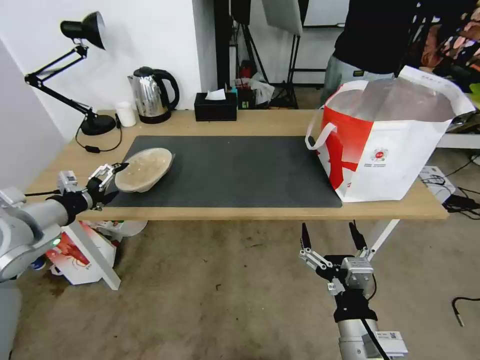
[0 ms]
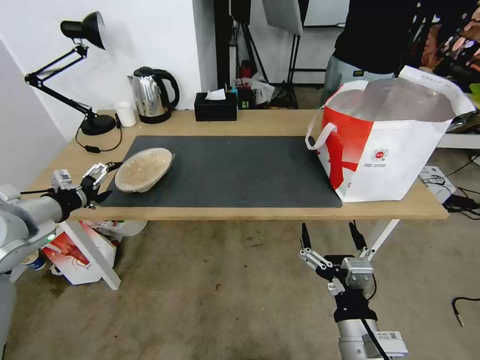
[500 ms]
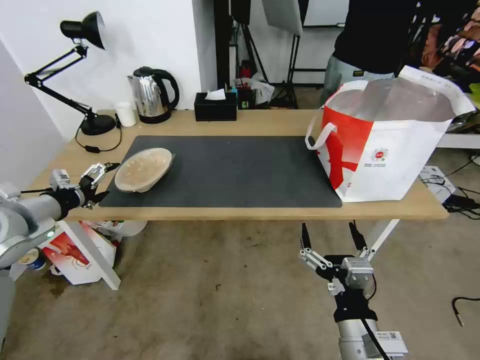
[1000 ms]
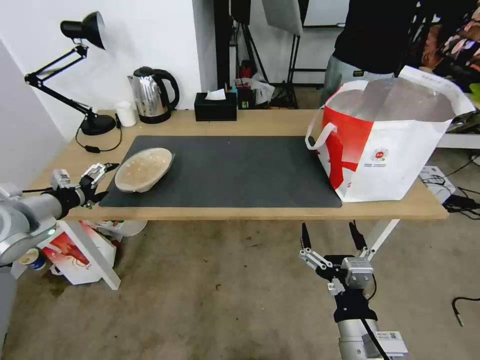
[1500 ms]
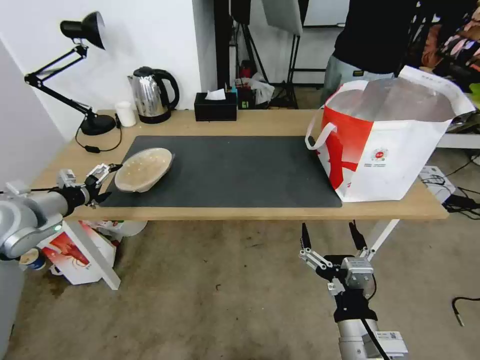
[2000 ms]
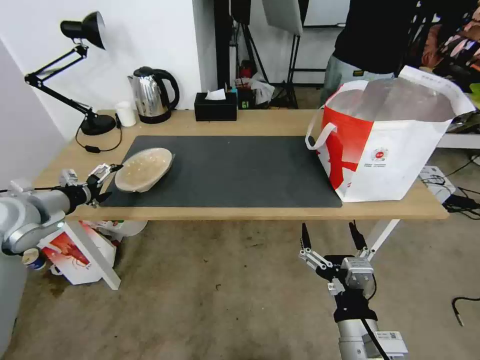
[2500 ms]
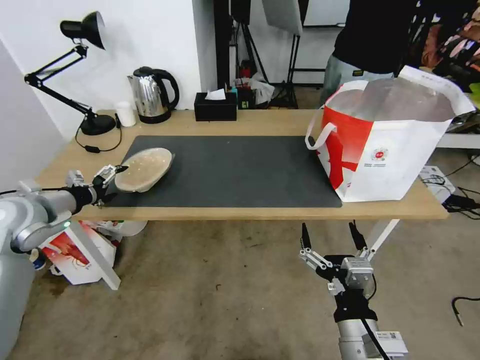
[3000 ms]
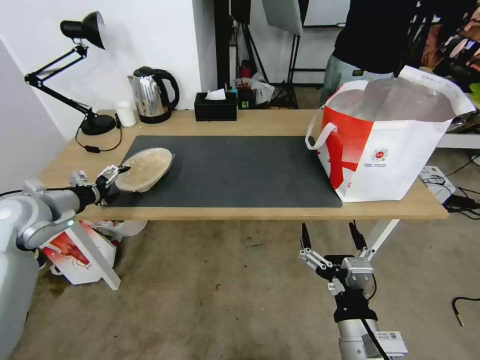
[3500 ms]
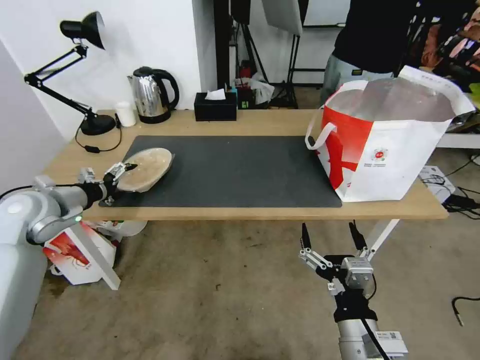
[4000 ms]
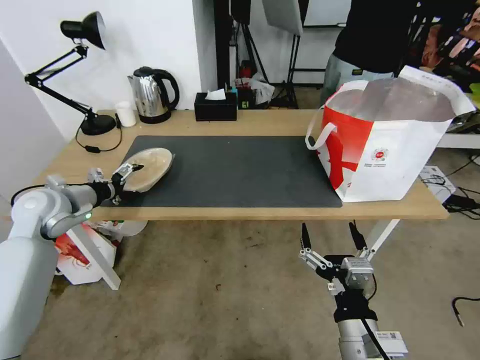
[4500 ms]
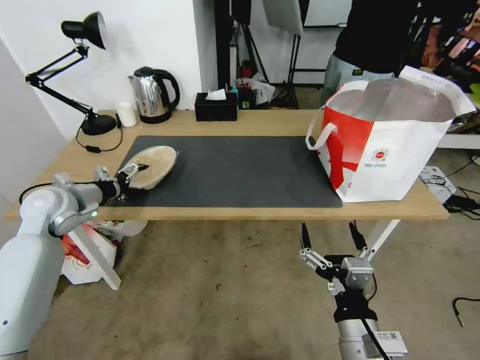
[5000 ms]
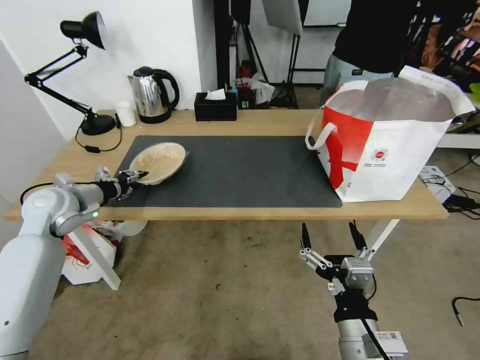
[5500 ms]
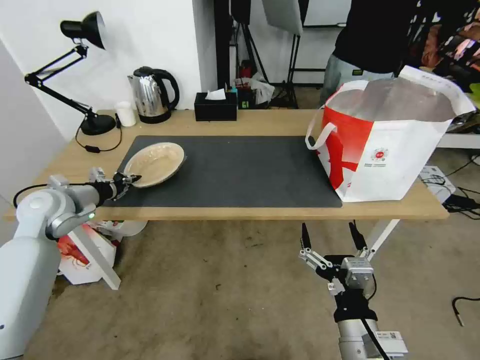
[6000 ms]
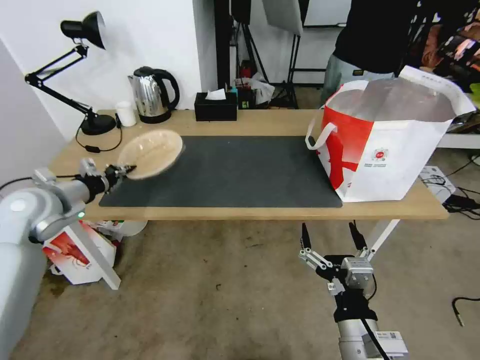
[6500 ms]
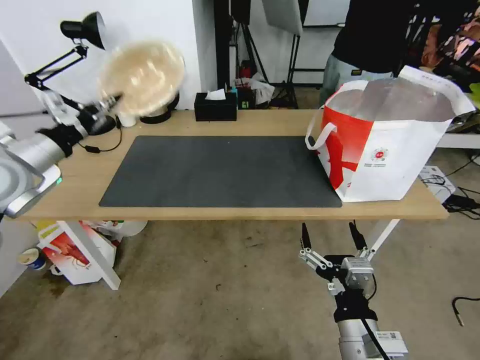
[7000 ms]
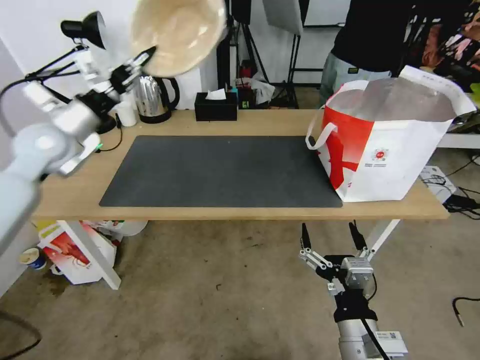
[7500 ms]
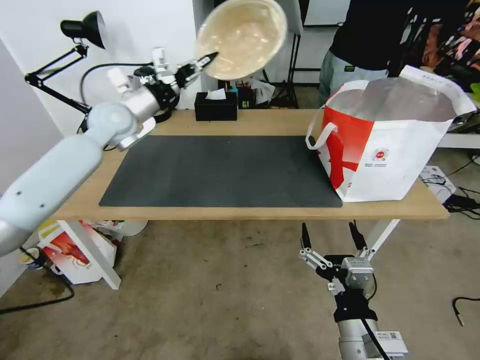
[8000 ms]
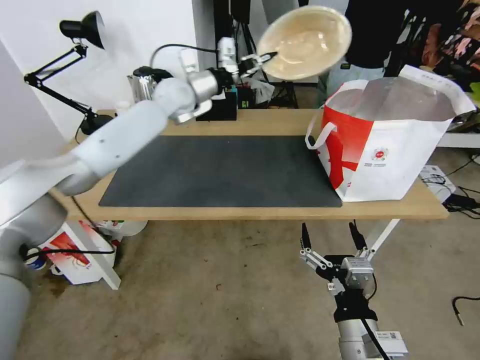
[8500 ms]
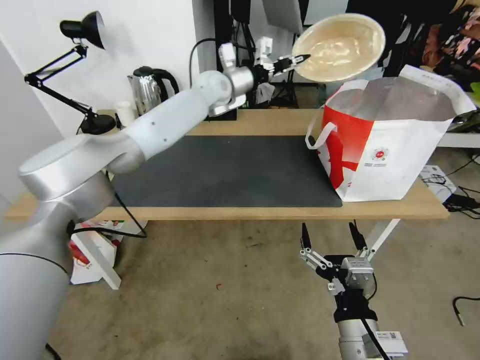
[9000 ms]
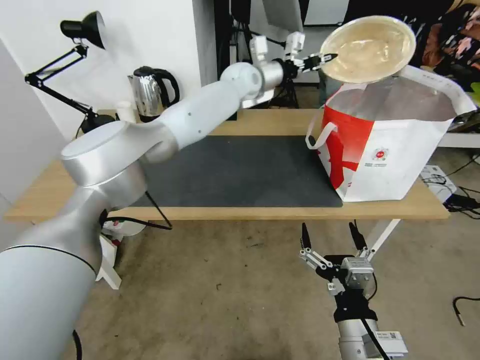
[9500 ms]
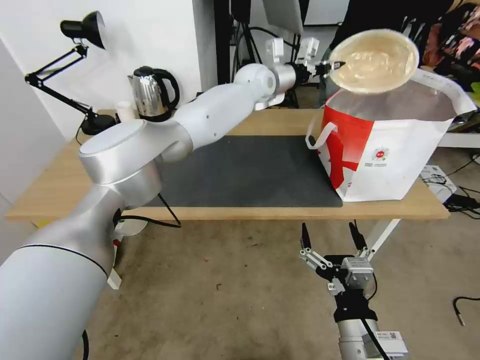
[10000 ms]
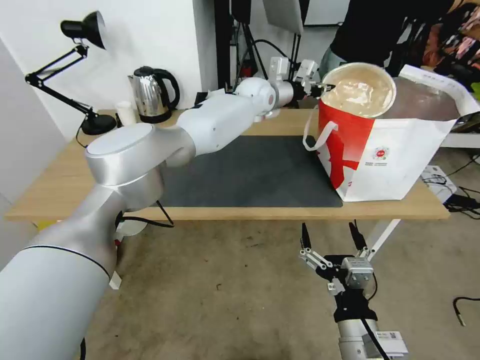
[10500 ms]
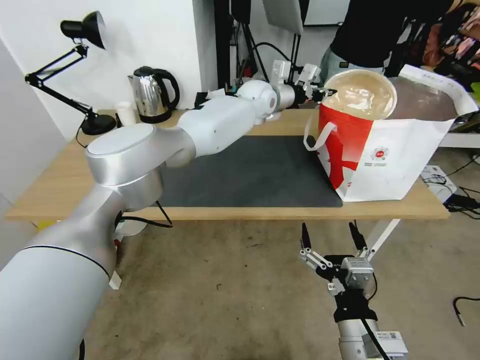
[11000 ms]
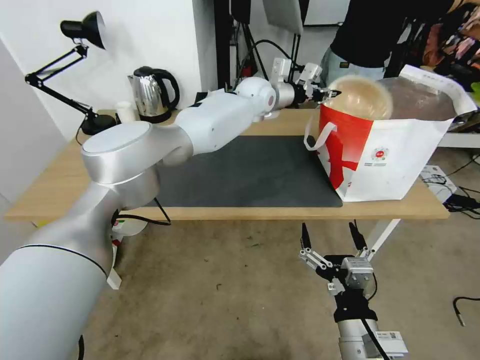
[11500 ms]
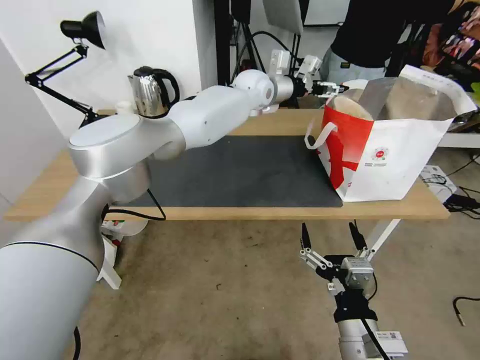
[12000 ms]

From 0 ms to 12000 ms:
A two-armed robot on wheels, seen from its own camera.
Task of the whole recording: Pick up the trash from the table and place it into the takeout bag.
From 0 ms to 2000 ms: The left gripper ends up about 5 cm from where it was.
From 2000 ms to 4000 ms: The grippers make only small movements.
From 4000 ms to 6000 ms: The left gripper closes.
From 6000 ms to 8000 ms: The left gripper heads forward, to the right and upward, covering roughly 25 cm.
From 8000 ms to 10000 ms: The left gripper shifts about 30 cm to the right.
From 10000 ms to 12000 ms: The left gripper opens its fingers.

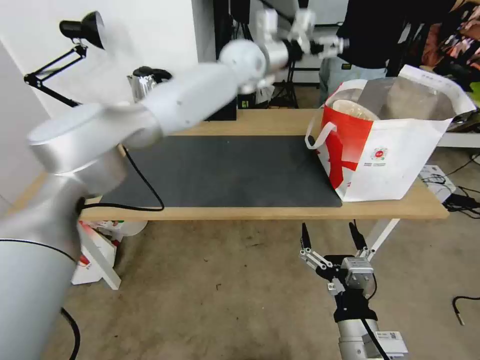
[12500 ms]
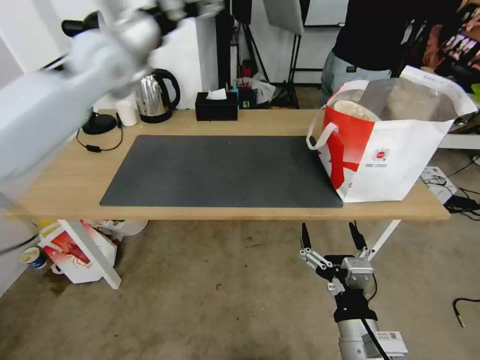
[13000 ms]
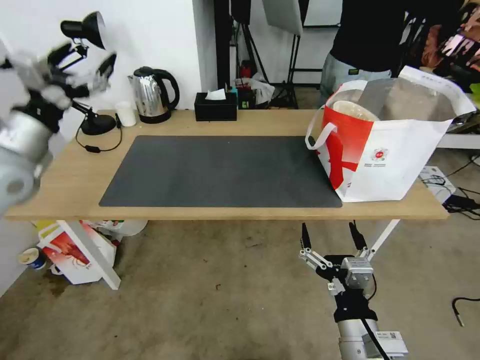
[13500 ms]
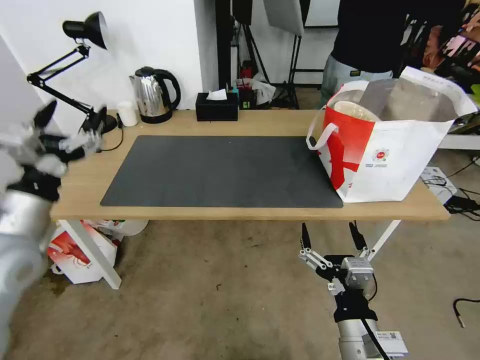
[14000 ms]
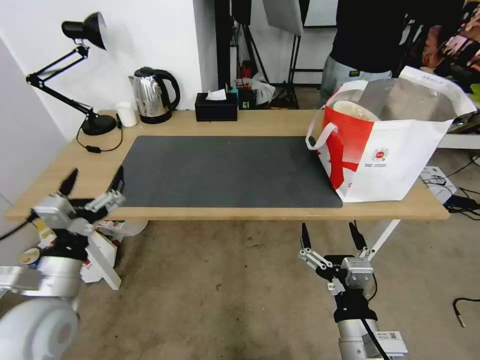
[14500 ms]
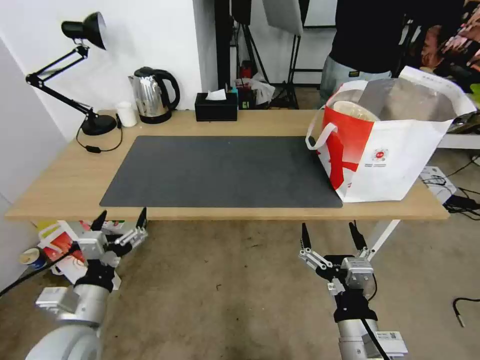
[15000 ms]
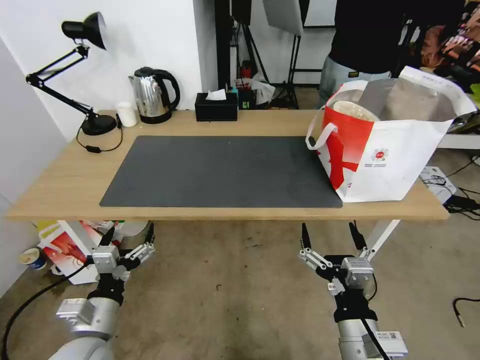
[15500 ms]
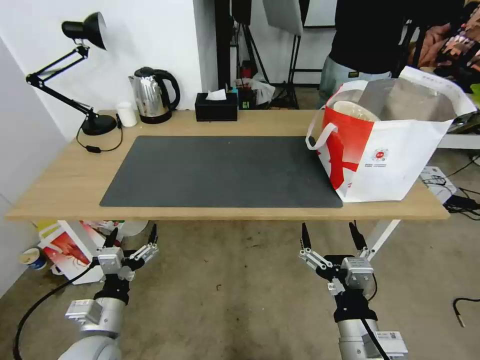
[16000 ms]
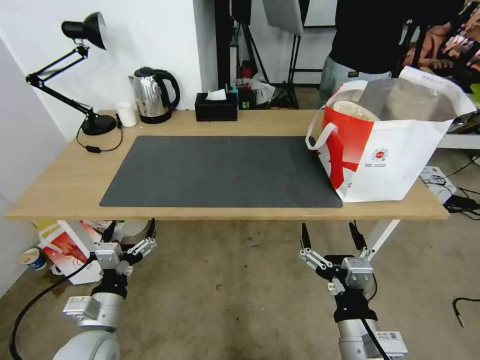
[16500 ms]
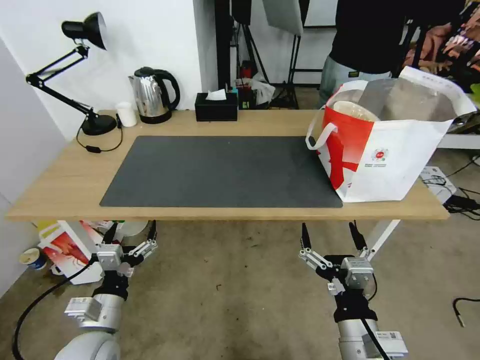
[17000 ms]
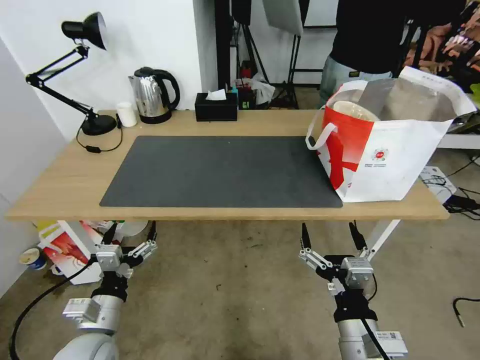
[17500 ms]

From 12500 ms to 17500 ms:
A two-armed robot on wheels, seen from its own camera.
Task of the whole recording: Pick up the trash from the table and place it into the takeout bag.
From 12500 ms to 15000 ms: The left gripper goes about 60 cm backward, downward and to the left.
From 15000 ms to 17500 ms: The left gripper moves downward, some 5 cm.

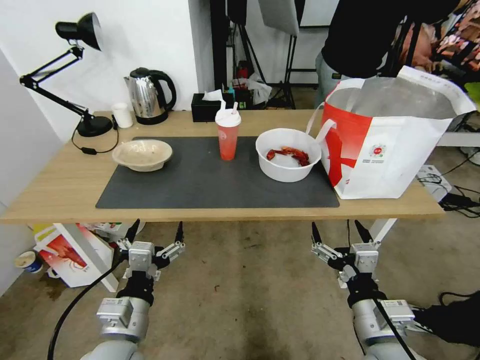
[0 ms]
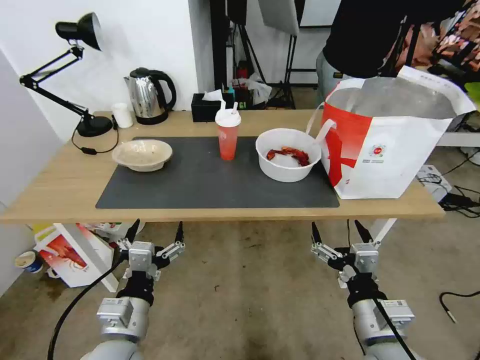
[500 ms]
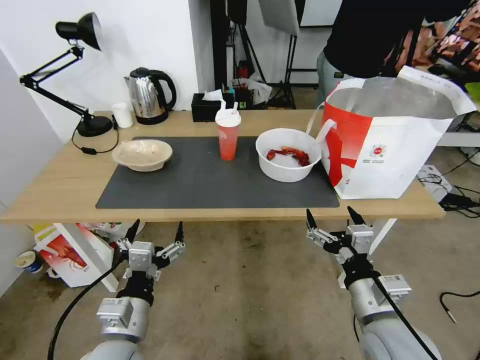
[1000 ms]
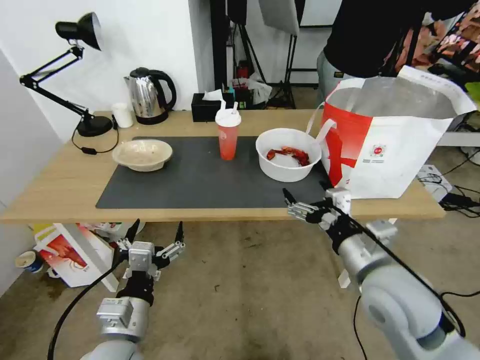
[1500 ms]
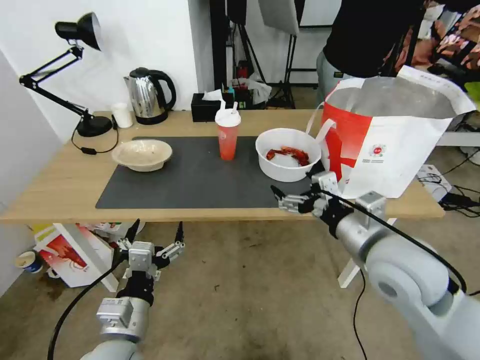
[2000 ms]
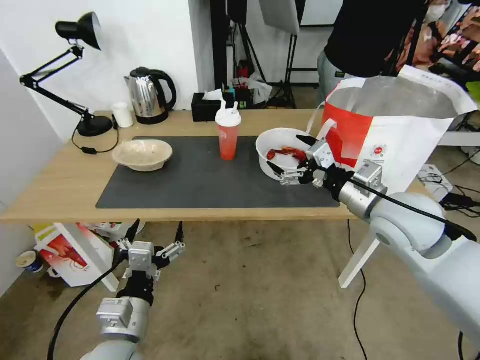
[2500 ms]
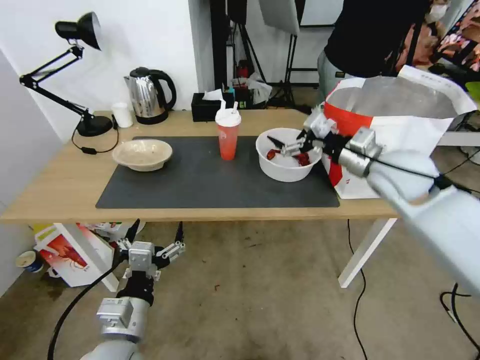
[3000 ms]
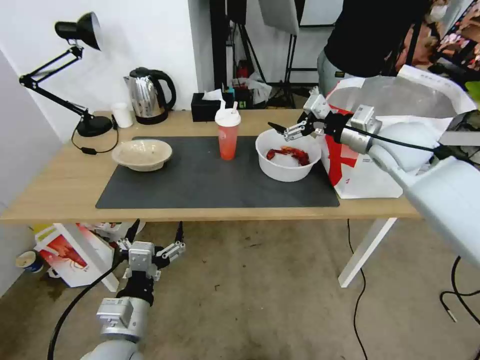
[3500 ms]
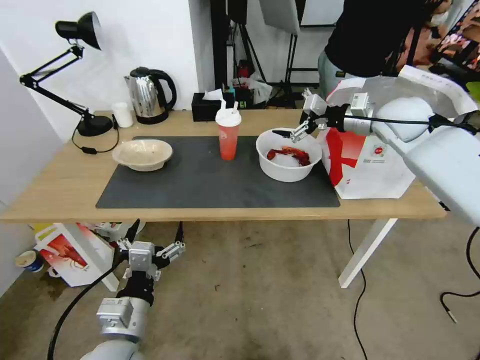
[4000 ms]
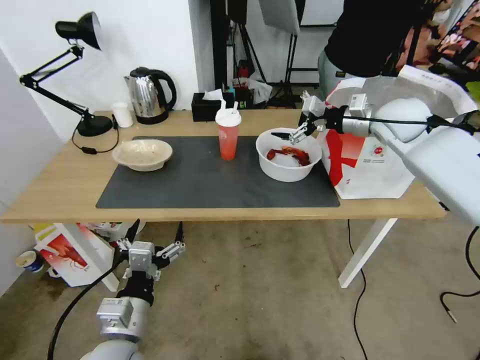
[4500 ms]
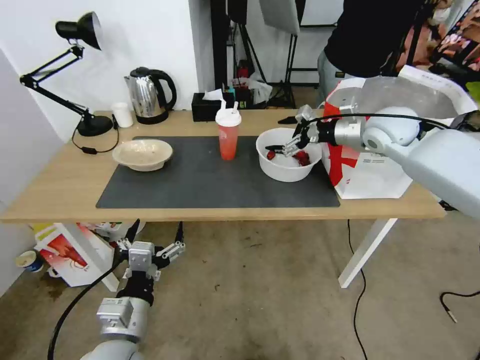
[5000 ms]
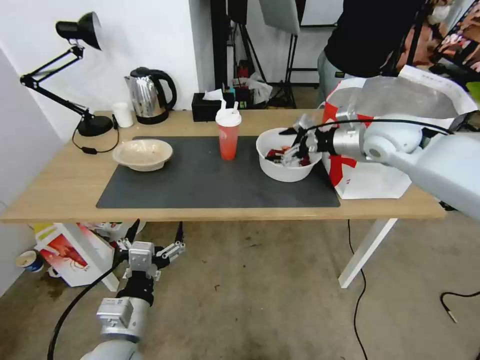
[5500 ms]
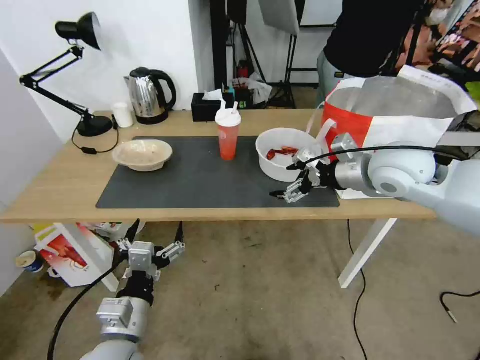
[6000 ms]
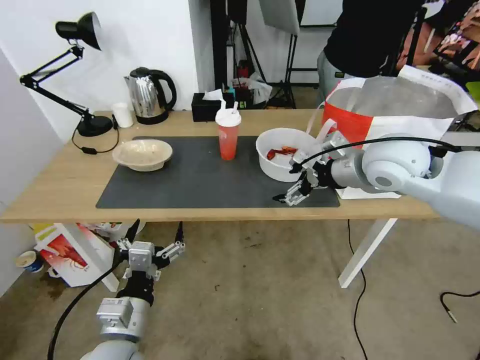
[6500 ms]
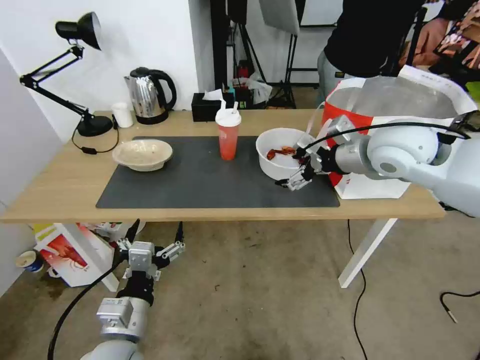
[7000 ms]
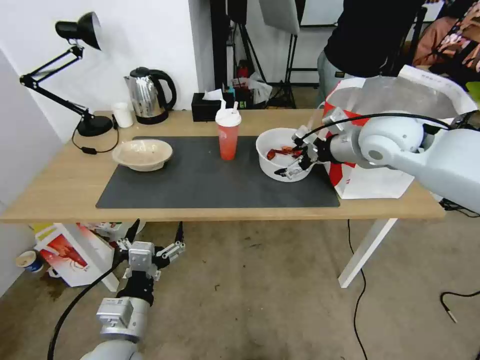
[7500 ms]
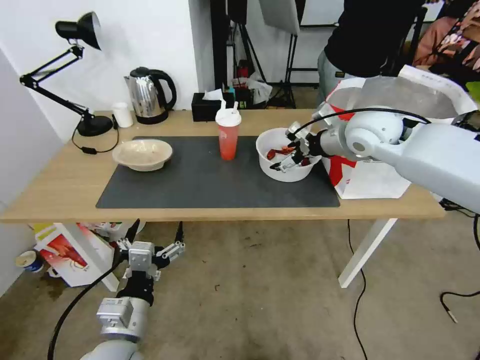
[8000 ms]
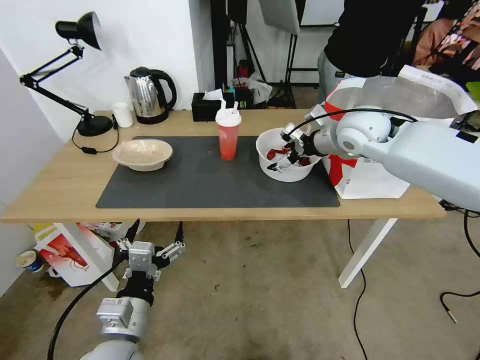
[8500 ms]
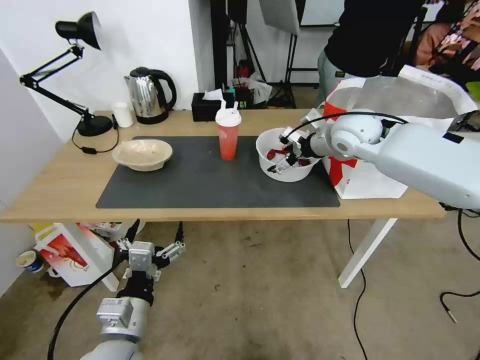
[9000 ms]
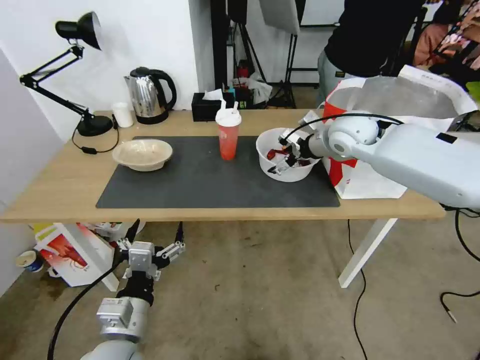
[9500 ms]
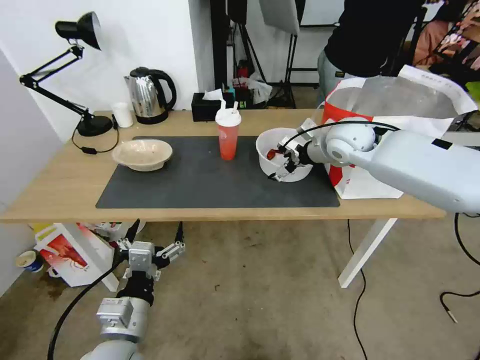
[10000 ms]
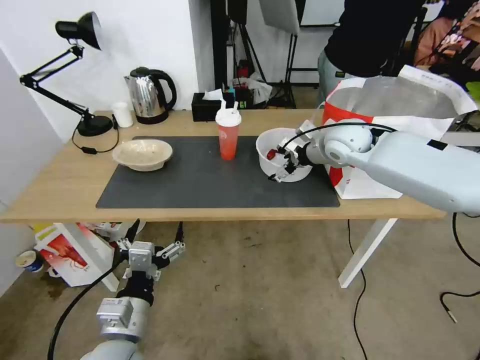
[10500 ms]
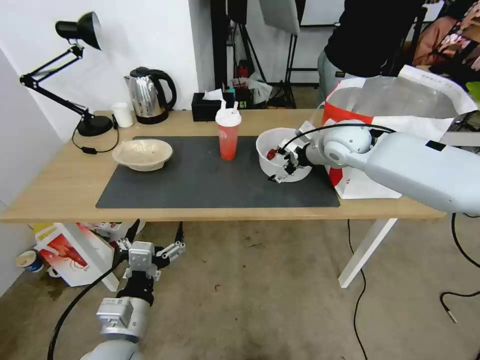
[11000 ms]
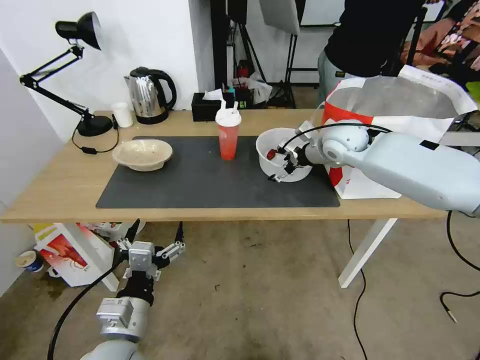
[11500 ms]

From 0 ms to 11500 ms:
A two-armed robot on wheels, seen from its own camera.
Task of the whole recording: Pick up the trash from the table and place it into the takeout bag.
From 2000 ms to 4000 ms: The right gripper shifts about 30 cm forward.
From 4000 ms to 6000 ms: The right gripper moves backward and to the left, approximately 15 cm.
From 6000 ms to 7500 ms: The right gripper travels forward by roughly 5 cm.
From 7500 ms to 9500 ms: The right gripper is displaced forward by approximately 5 cm.
From 9500 ms to 11500 ms: The grippers make only small movements.
